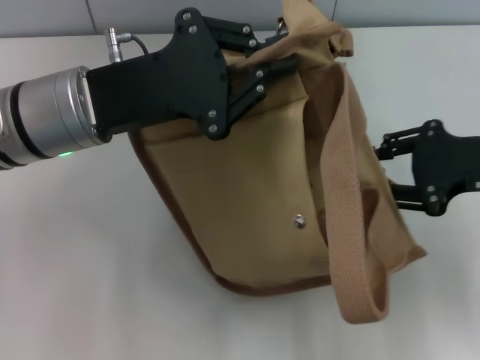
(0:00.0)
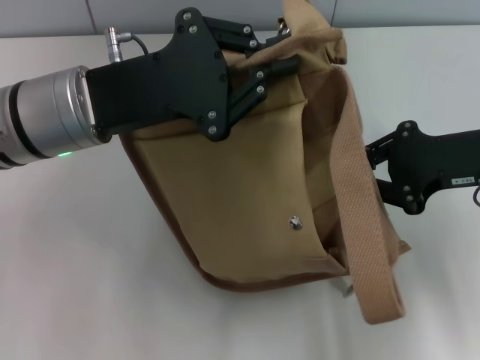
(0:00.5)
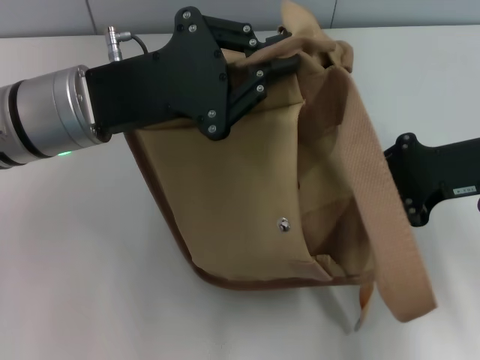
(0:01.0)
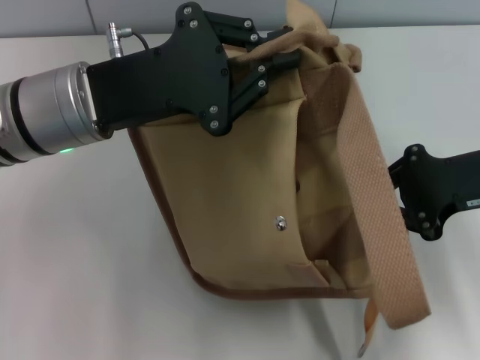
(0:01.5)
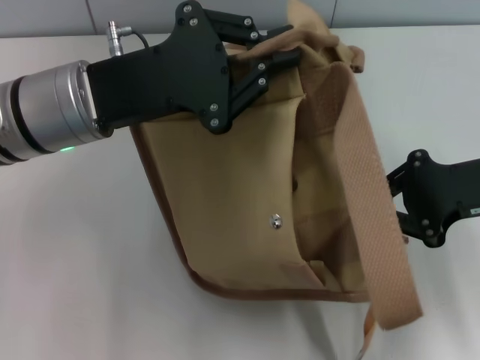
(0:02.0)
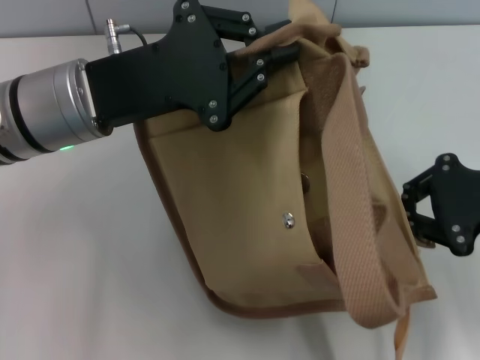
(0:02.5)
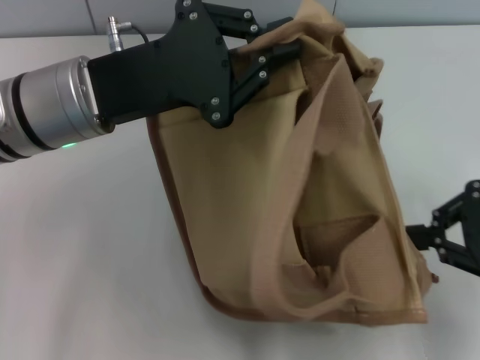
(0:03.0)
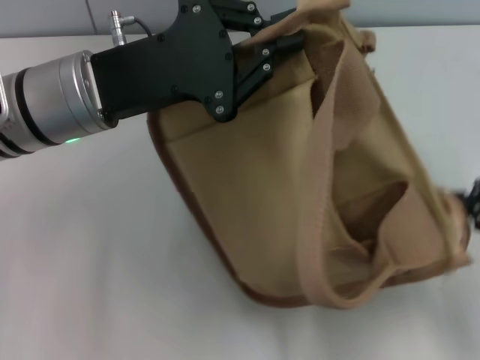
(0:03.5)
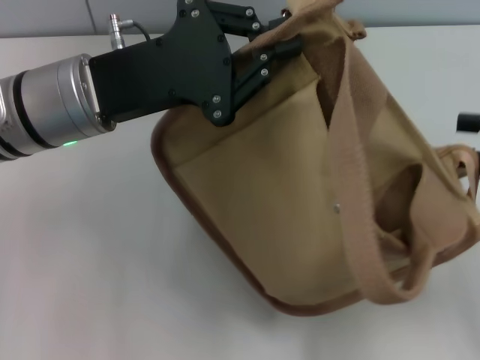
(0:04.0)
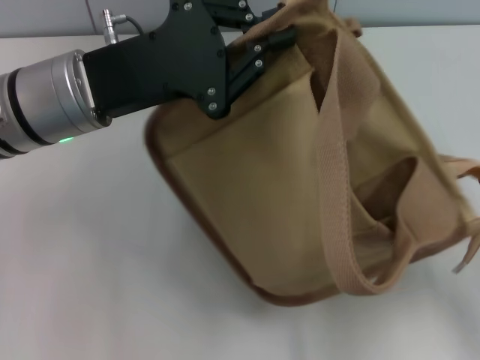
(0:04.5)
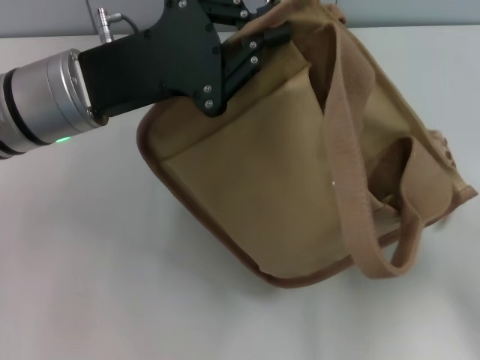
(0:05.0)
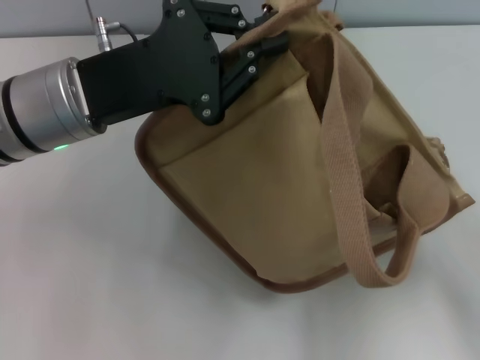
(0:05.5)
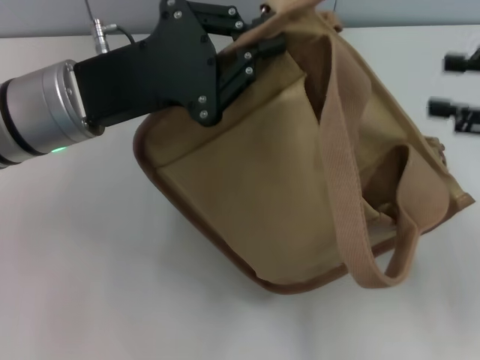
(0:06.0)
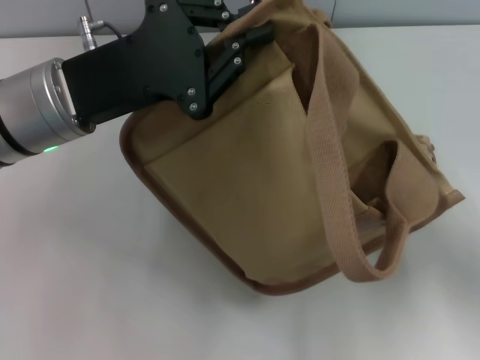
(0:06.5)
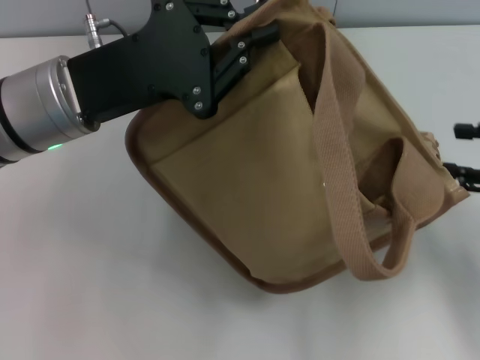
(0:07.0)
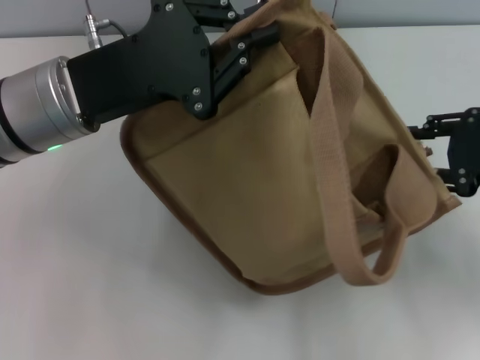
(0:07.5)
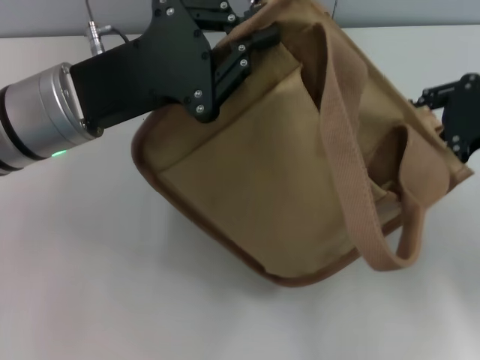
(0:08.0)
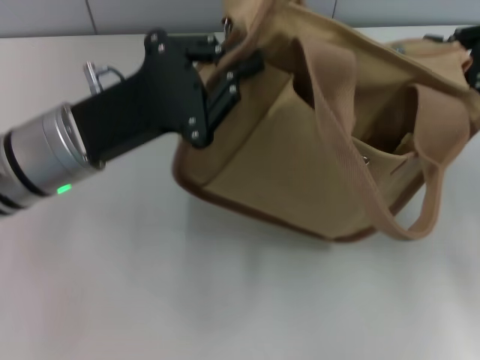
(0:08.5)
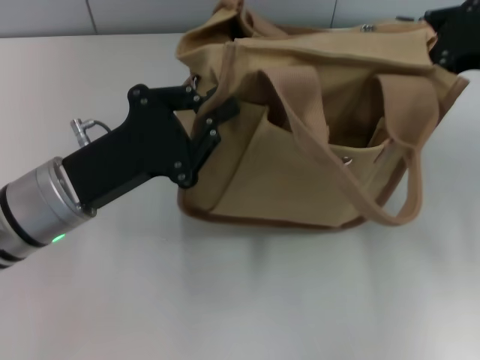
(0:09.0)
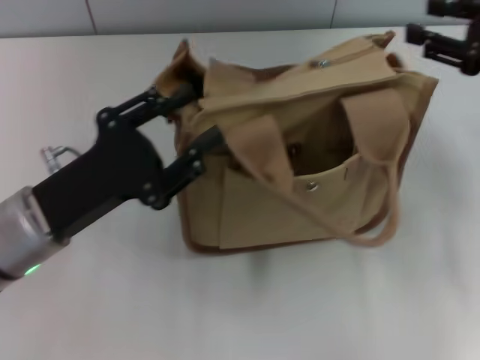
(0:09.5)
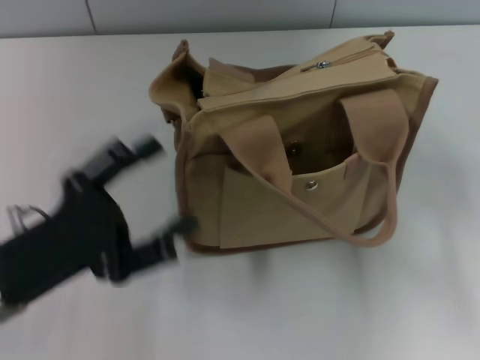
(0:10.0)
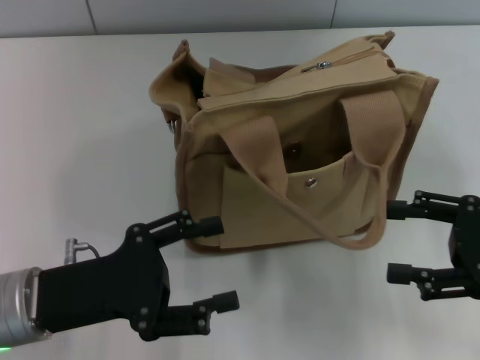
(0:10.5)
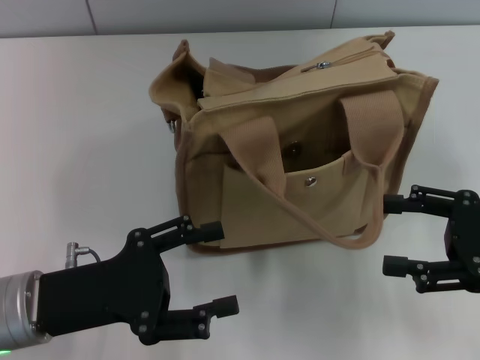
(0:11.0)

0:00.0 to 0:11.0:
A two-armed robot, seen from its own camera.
Step, 0:00.0 to 0:09.0: Grab the bag with your left hand.
0:00.0 to 0:02.0: The right gripper closes up.
0:02.0 to 0:03.5: The right gripper is displaced to the right and backward by roughly 10 cm.
0:03.5 to 0:05.5: The right gripper changes place by approximately 5 cm, and opens up.
0:05.5 to 0:07.5: The right gripper travels to the left and downward by some 10 cm.
0:07.5 to 0:09.0: The right gripper moves forward, about 5 cm, and closes up; the left gripper travels downward by approximately 5 cm.
0:09.0 to 0:11.0: The left gripper is displaced backward by about 5 cm, and opens up. Meanwhile the right gripper shifts roughly 15 cm backward and downward, and opens.

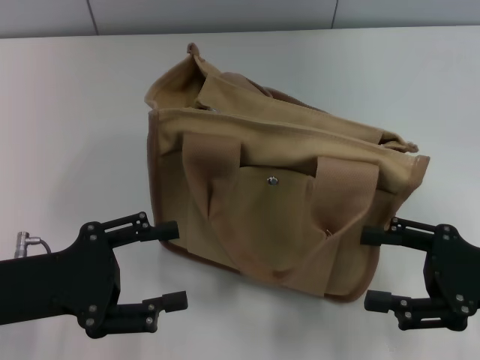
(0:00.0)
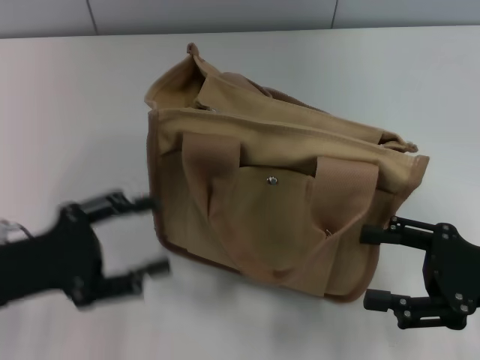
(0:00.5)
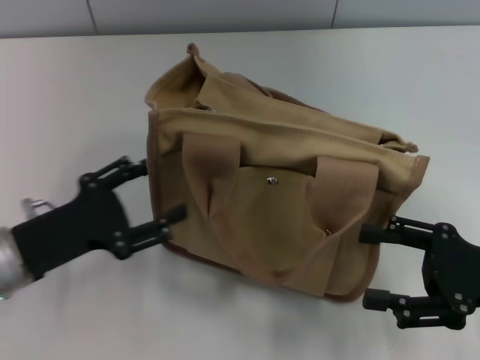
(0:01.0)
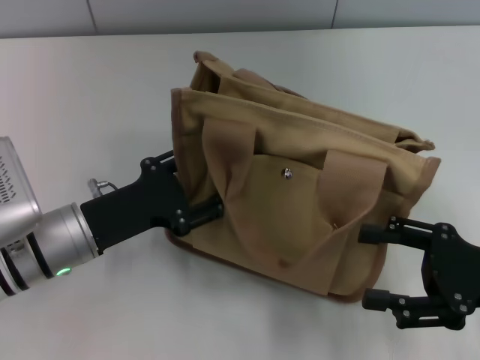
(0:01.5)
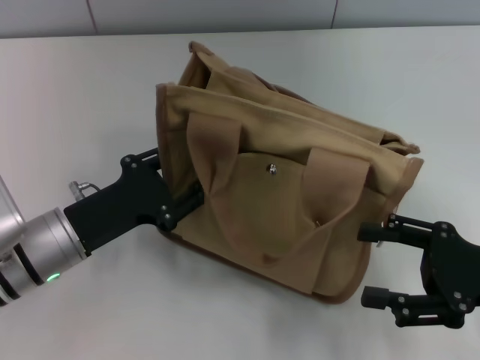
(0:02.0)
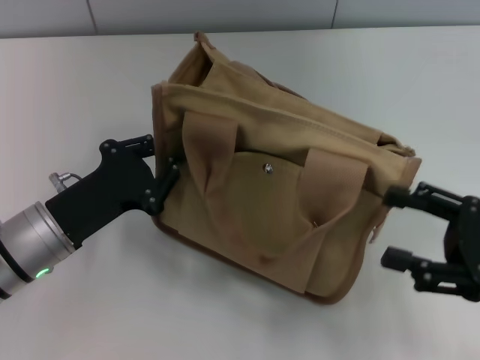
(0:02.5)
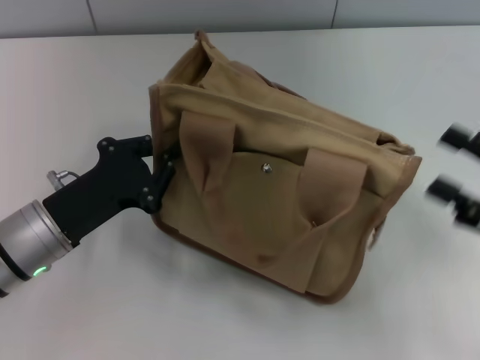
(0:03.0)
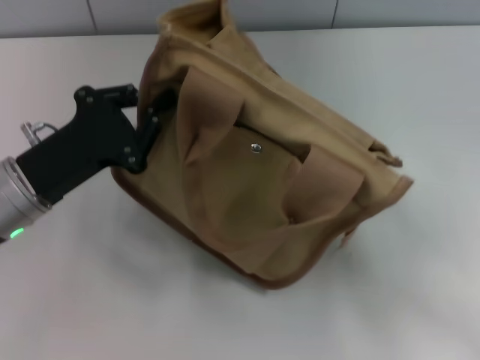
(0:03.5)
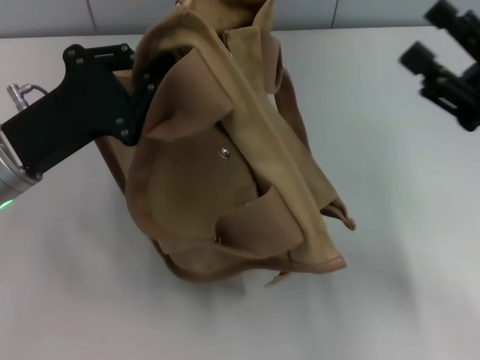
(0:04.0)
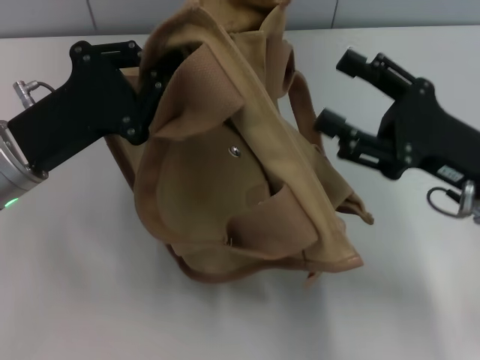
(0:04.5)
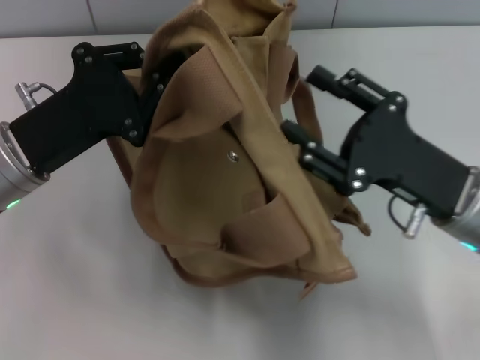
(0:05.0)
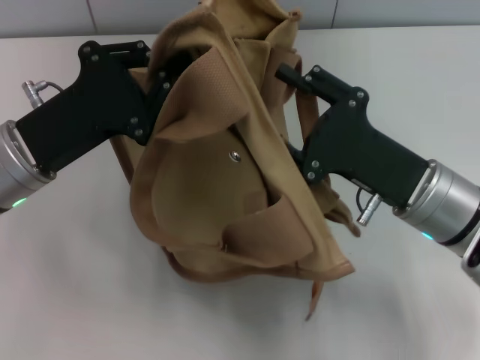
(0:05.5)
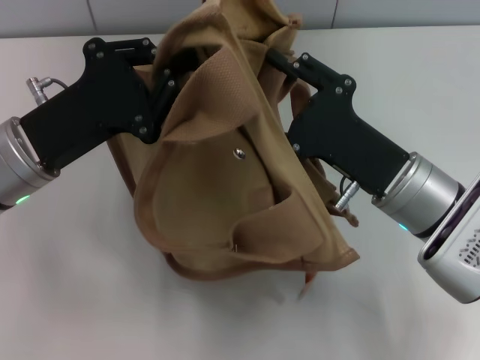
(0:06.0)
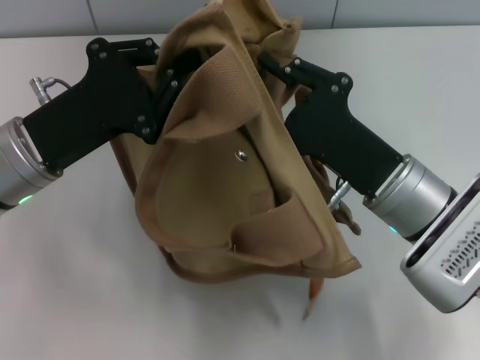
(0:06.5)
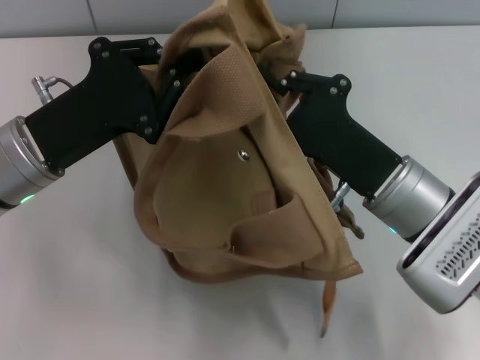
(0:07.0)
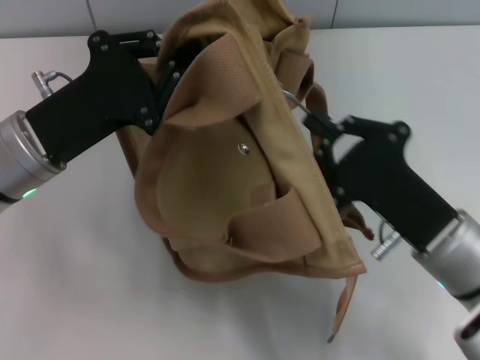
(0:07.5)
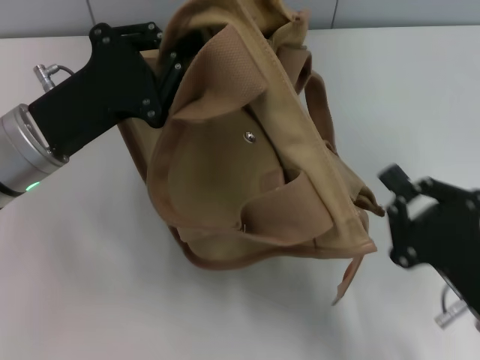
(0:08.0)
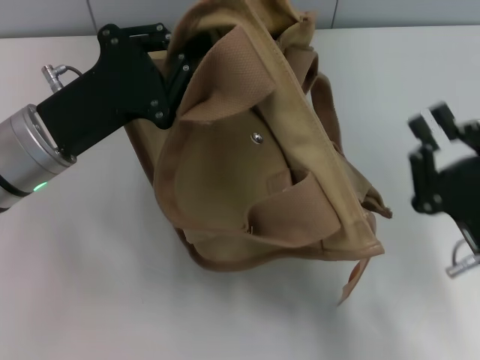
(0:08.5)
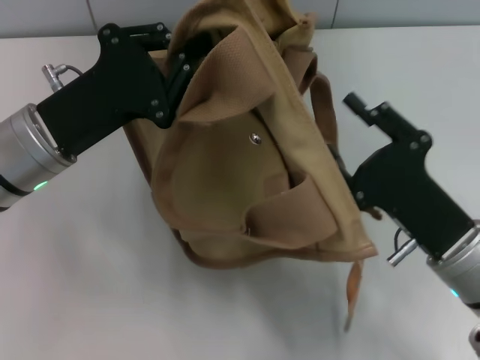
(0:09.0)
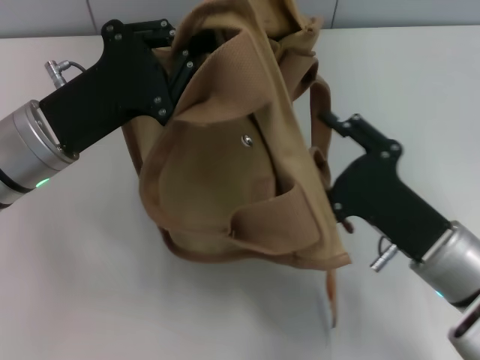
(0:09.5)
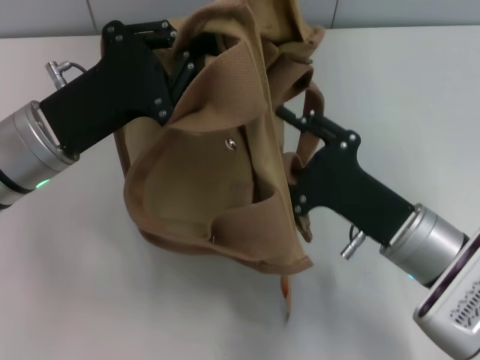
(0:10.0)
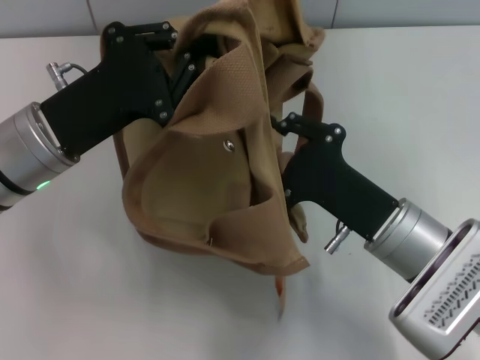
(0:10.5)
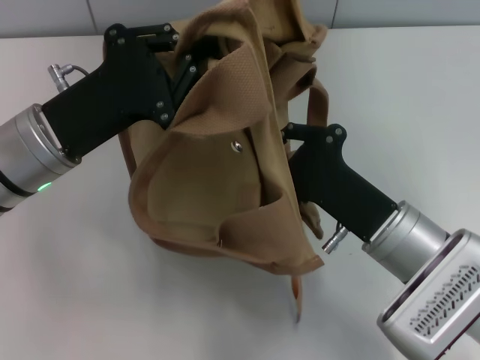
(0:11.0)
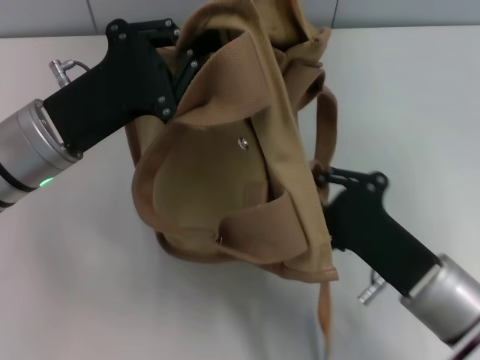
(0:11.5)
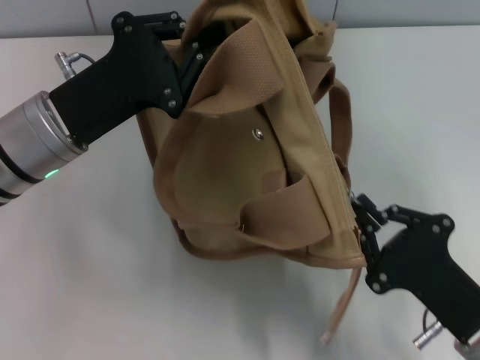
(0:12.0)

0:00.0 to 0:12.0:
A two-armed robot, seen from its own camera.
0:00.0 to 0:02.0: The left gripper ends up about 10 cm from where it was.
0:02.0 to 0:04.0: The right gripper is displaced forward by some 5 cm, while the left gripper travels upward by about 5 cm, and closes its fingers.
0:04.0 to 0:06.0: The right gripper is displaced to the left by some 10 cm.
0:06.0 to 0:08.0: The right gripper goes approximately 15 cm backward and to the right, and closes up.
0:08.0 to 0:10.0: The right gripper shifts some 10 cm forward and to the left, and opens its fingers.
0:10.0 to 0:12.0: The right gripper is displaced backward and to the right by some 10 cm, and closes.

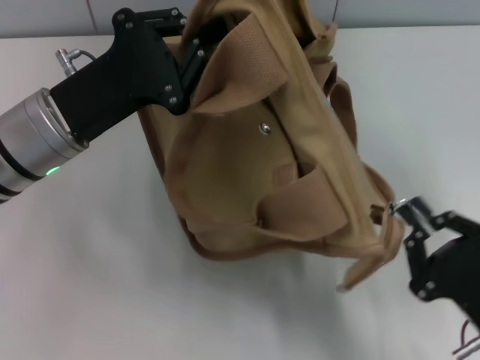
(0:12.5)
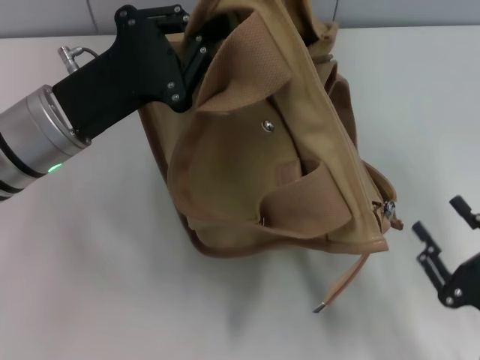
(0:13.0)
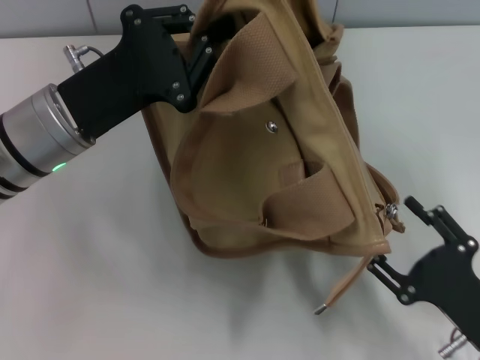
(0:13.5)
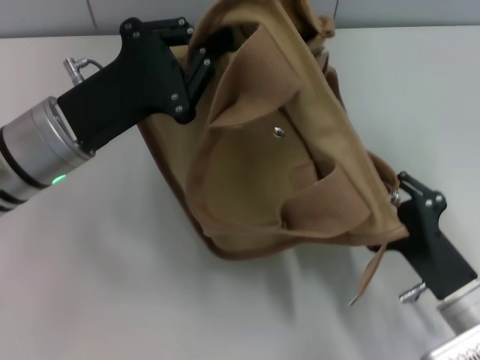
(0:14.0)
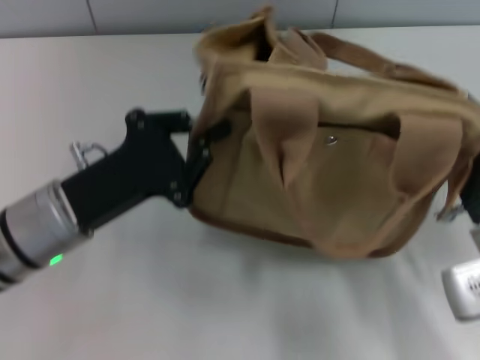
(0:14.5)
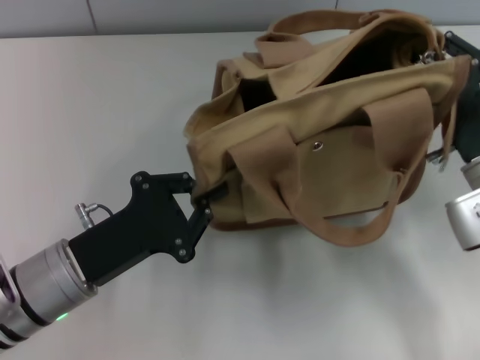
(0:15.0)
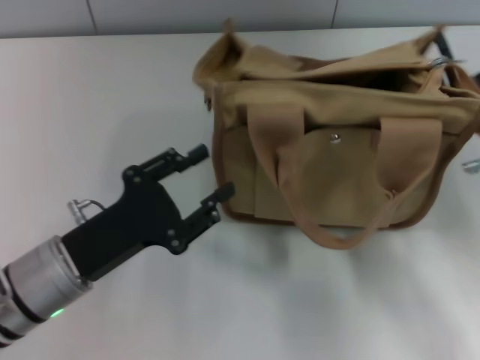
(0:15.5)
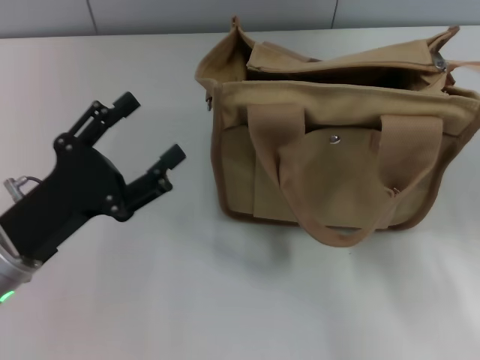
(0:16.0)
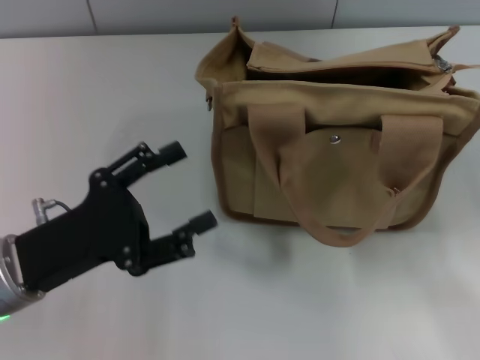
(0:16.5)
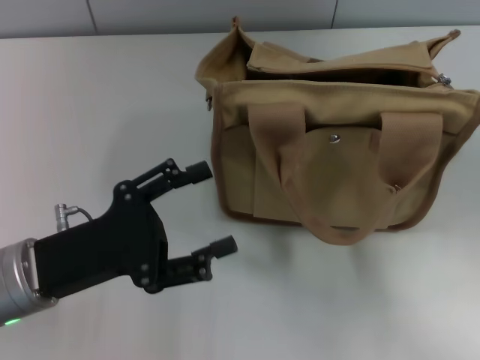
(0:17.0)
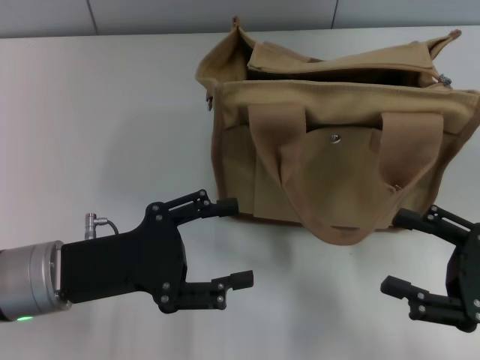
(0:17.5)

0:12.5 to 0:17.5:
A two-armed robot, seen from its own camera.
Step, 0:13.5 to 0:15.0: Grab the bag with your left hand.
0:12.5 to 0:15.0: The right gripper shifts some 15 cm forward, and opens and closes again. Meanwhile the left gripper heads backward and downward, covering roughly 10 cm.
0:15.0 to 0:17.5: The left gripper opens, while the right gripper travels backward and to the right by roughly 15 cm, and opens up.
